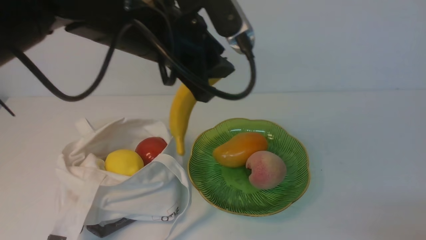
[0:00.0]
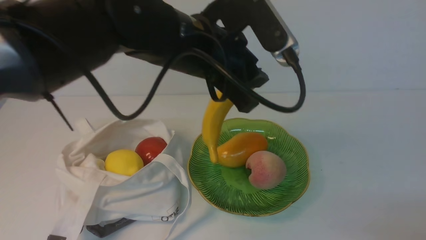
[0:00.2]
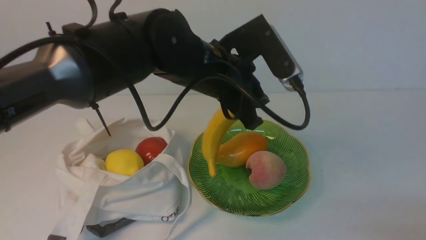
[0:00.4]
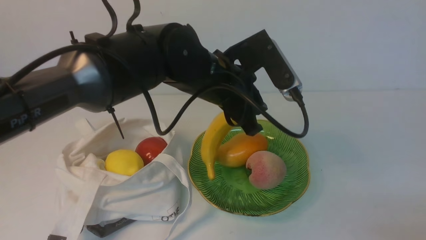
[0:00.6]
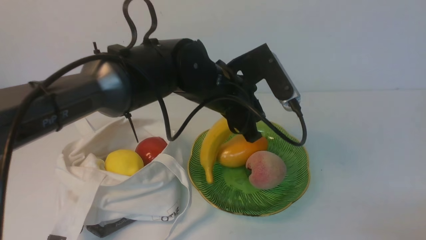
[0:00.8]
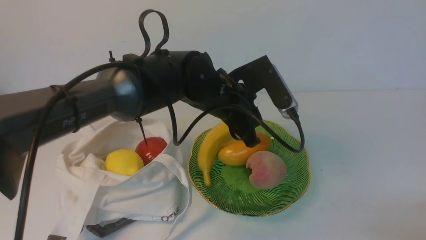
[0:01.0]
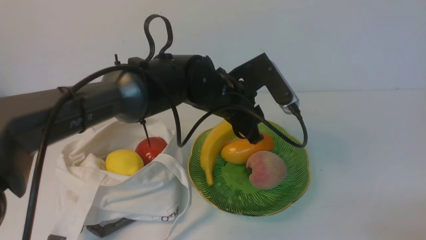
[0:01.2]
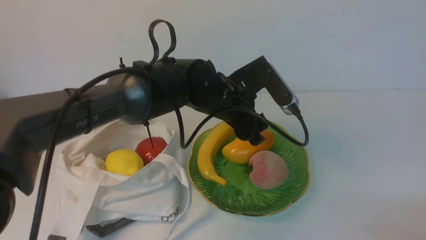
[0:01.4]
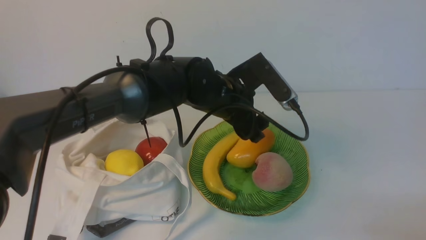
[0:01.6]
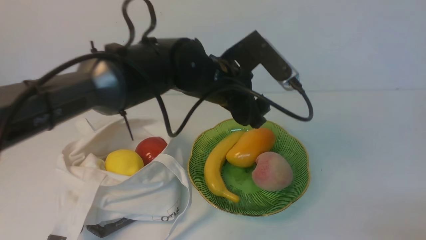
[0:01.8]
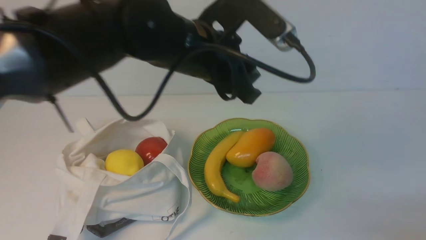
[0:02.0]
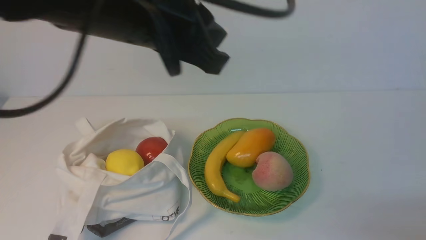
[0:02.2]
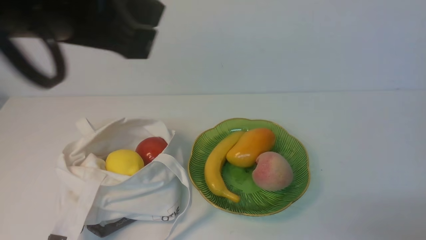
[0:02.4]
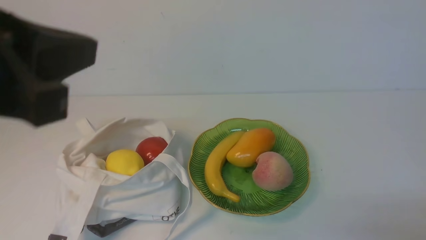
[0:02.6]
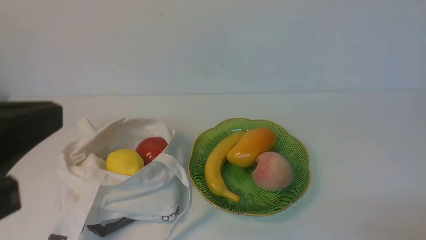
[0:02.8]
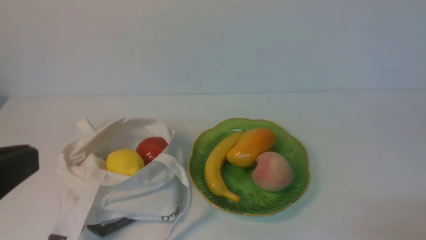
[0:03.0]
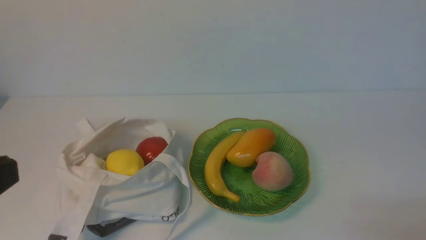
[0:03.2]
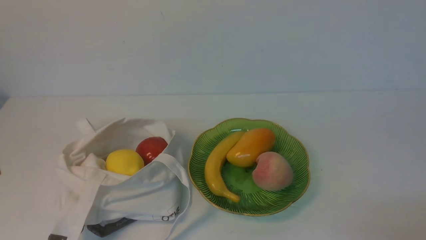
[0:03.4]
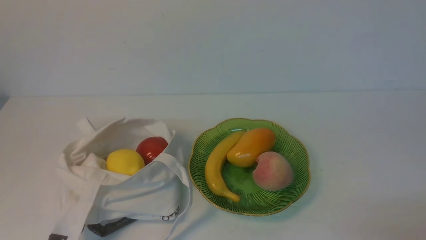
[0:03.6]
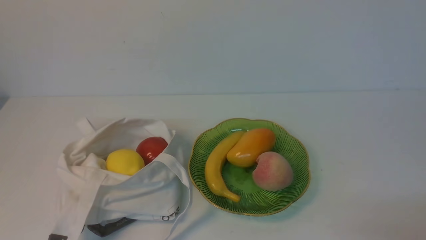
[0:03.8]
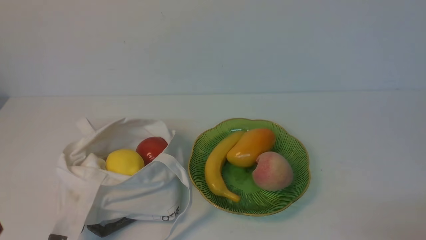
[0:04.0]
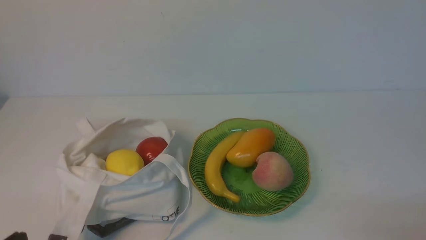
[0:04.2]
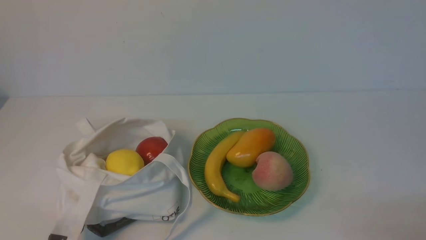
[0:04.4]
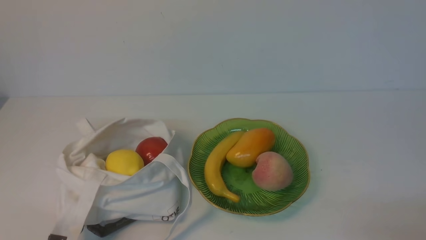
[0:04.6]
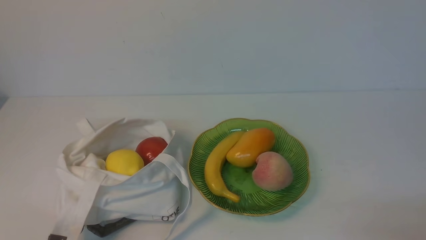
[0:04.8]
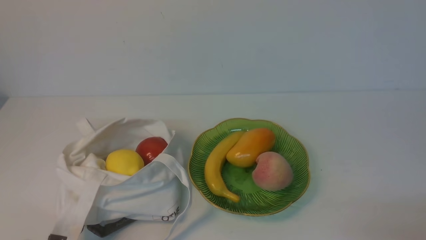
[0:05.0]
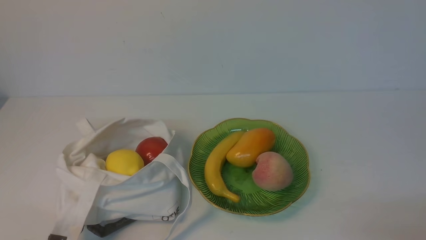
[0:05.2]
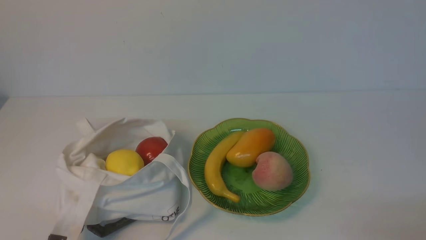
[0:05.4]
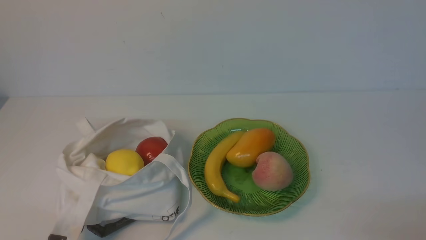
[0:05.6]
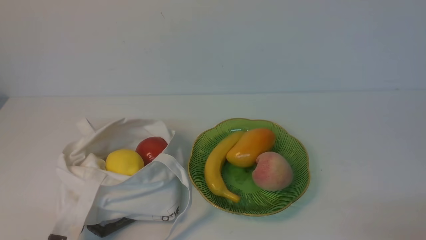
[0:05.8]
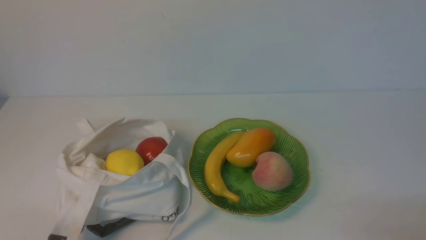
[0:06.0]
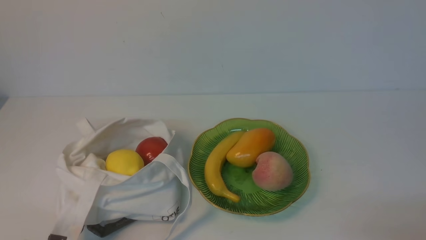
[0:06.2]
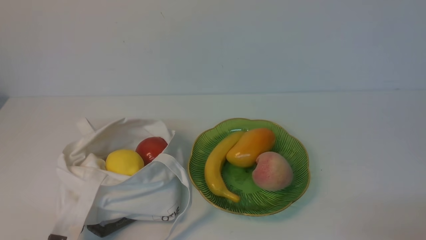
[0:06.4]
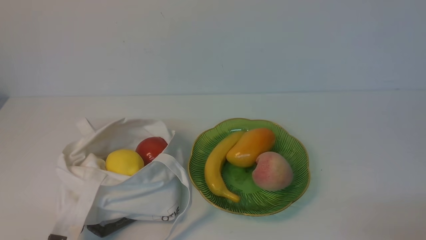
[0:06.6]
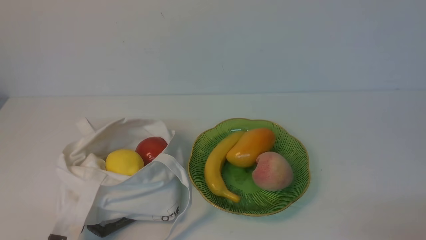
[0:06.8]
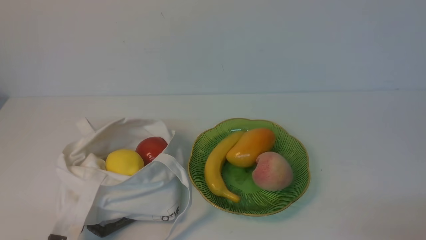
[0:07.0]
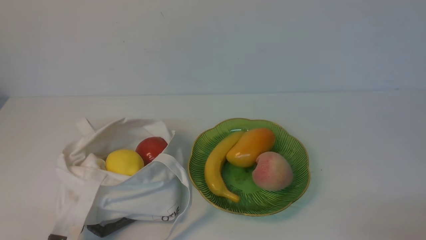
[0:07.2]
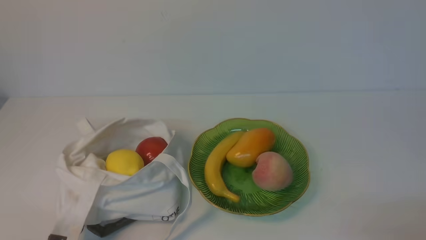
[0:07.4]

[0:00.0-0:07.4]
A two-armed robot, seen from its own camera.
Step, 0:00.0 to 0:01.6: use the left arm to put the banana into the empty plate on the right.
0:00.0 to 0:01.4: The left gripper goes about 15 cm downward, to the right and forward, and opens up.
0:01.4 to 0:03.0: The left gripper shifts approximately 40 cm backward, to the left and upward, and closes up.
0:03.0 to 0:04.4: The left gripper moves downward, about 20 cm.
0:04.4 to 0:07.4: The two grippers keep their place.

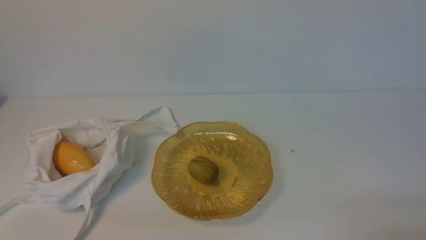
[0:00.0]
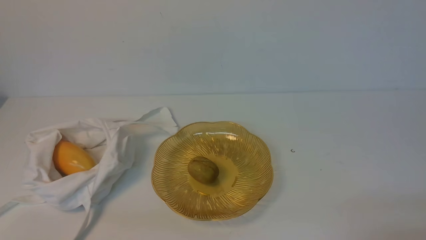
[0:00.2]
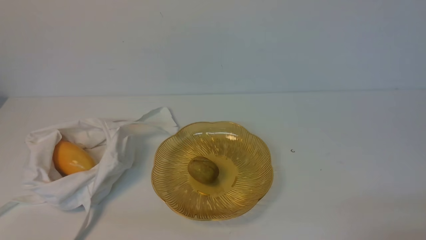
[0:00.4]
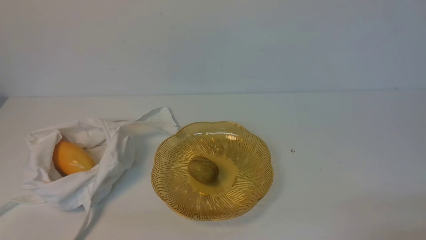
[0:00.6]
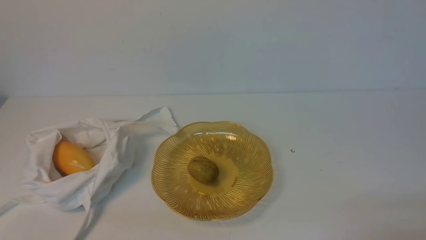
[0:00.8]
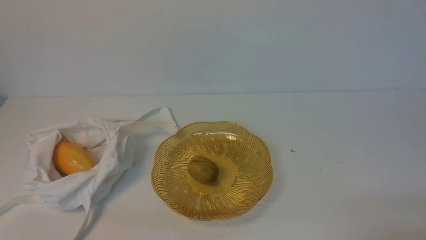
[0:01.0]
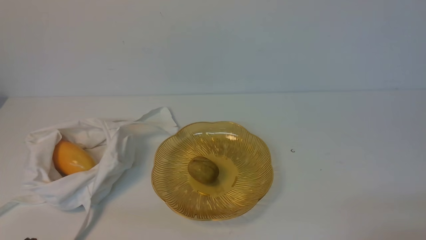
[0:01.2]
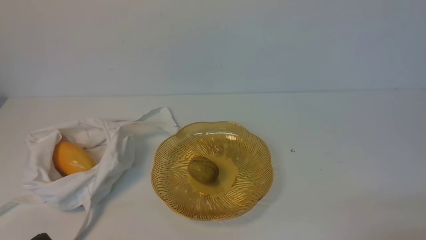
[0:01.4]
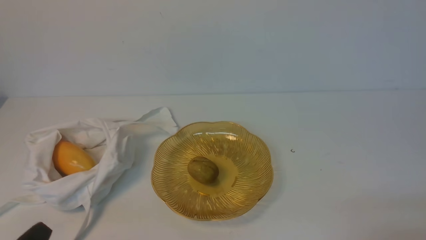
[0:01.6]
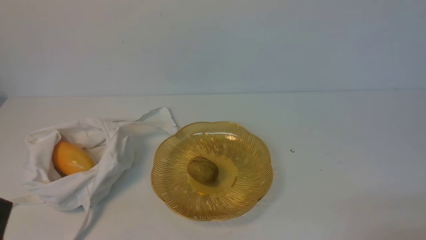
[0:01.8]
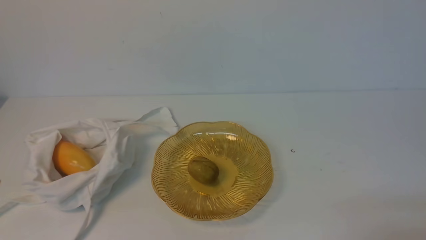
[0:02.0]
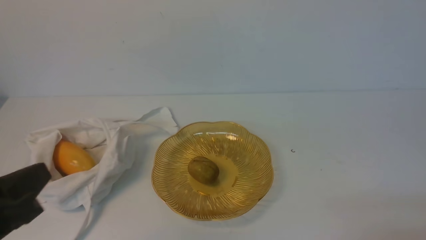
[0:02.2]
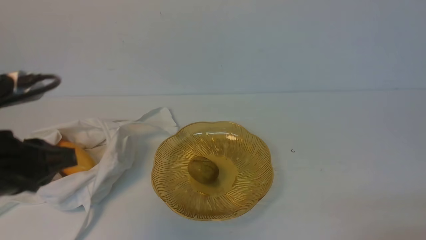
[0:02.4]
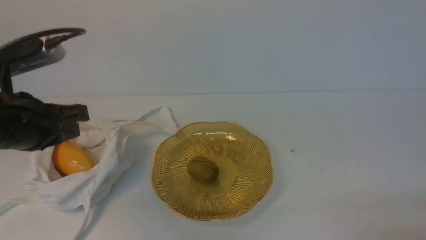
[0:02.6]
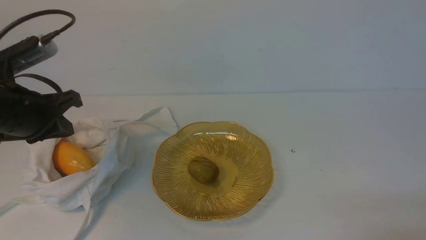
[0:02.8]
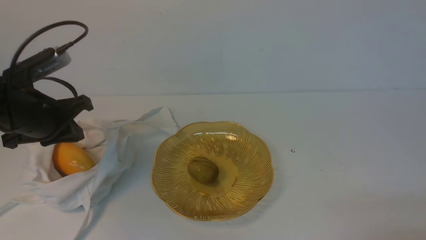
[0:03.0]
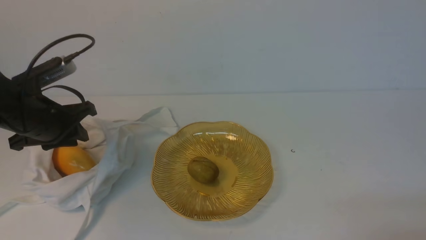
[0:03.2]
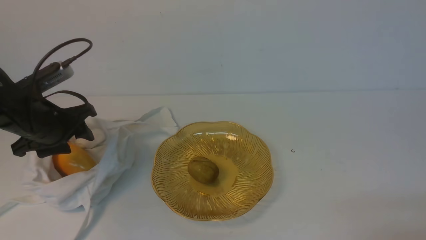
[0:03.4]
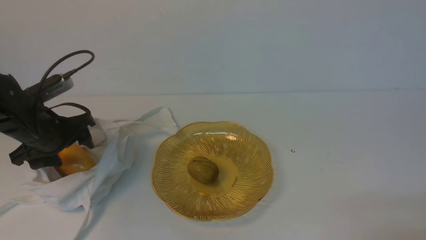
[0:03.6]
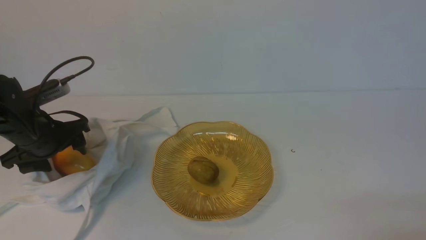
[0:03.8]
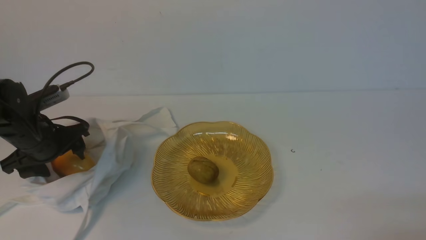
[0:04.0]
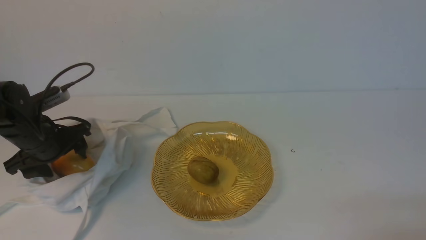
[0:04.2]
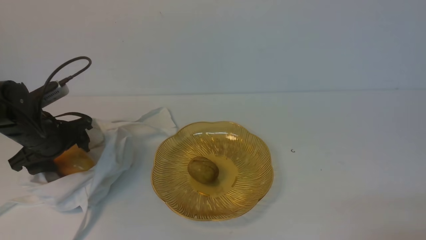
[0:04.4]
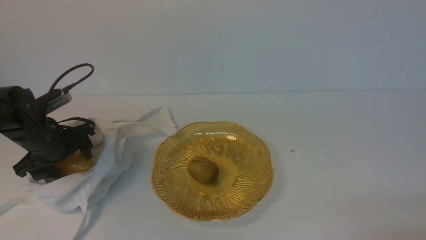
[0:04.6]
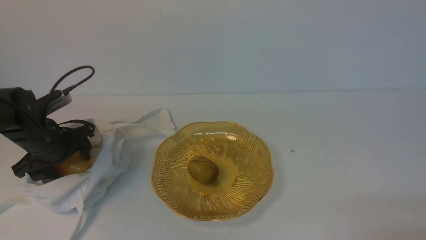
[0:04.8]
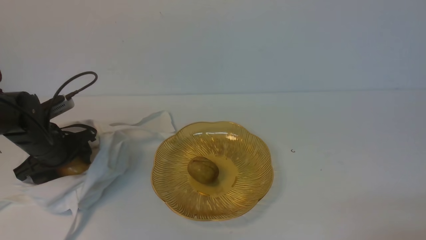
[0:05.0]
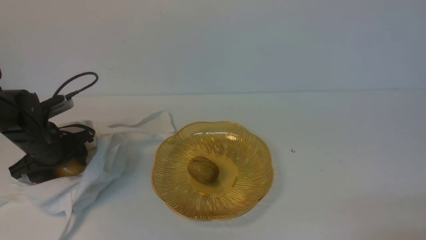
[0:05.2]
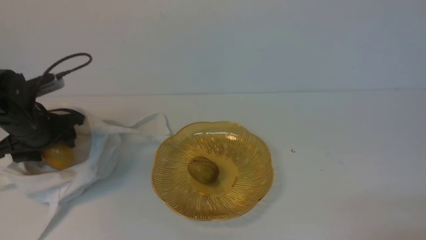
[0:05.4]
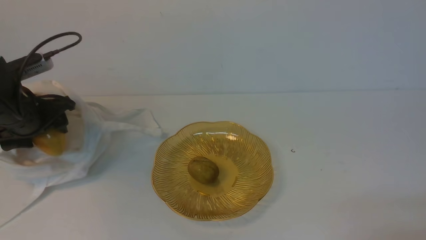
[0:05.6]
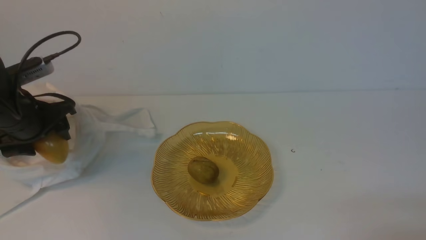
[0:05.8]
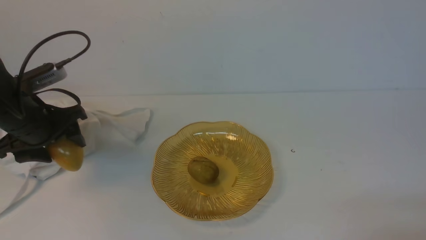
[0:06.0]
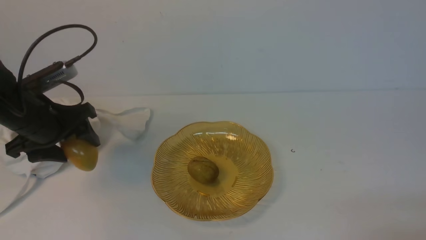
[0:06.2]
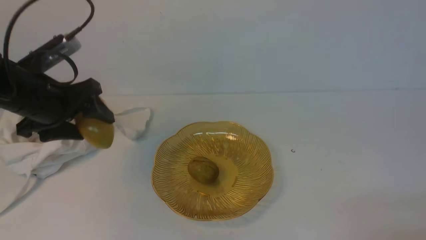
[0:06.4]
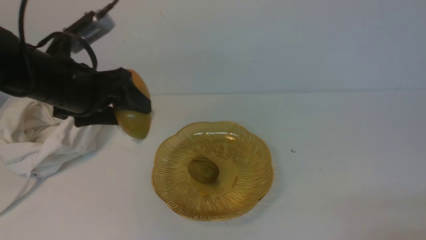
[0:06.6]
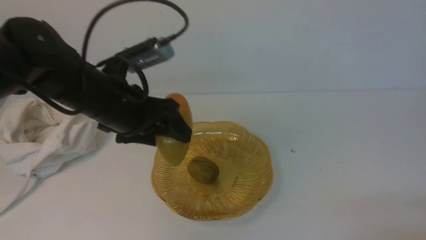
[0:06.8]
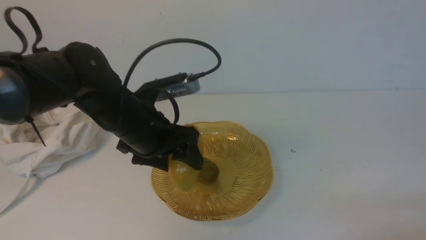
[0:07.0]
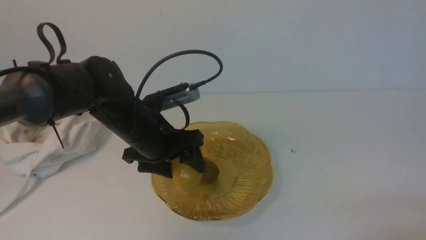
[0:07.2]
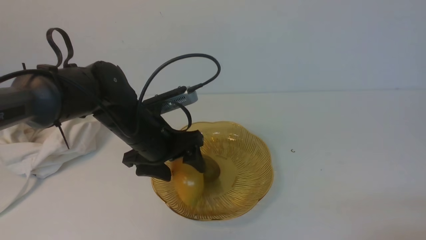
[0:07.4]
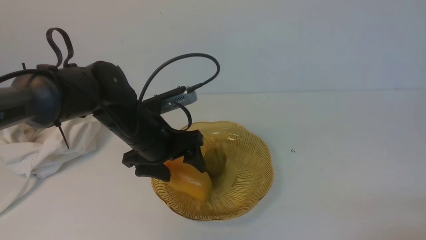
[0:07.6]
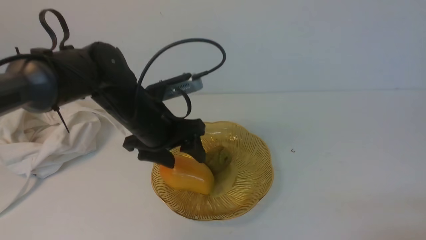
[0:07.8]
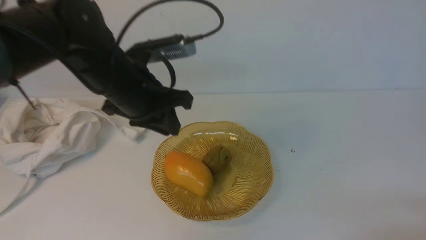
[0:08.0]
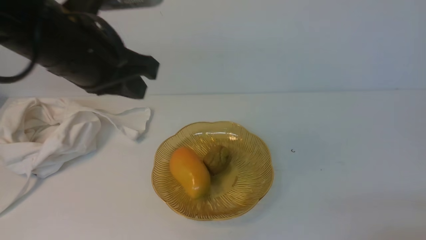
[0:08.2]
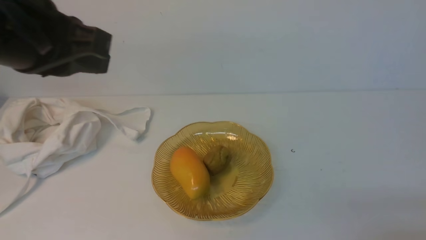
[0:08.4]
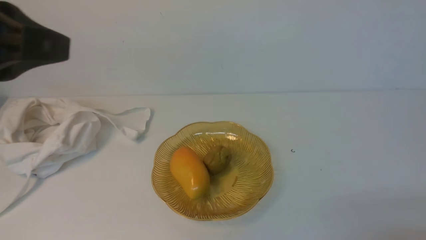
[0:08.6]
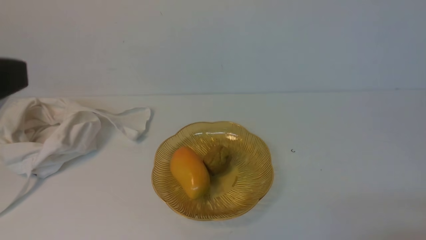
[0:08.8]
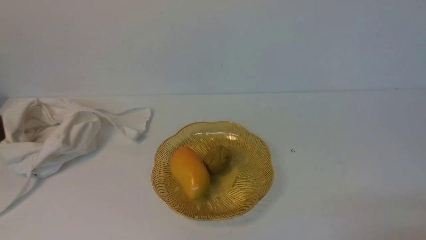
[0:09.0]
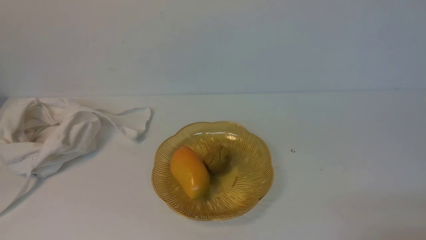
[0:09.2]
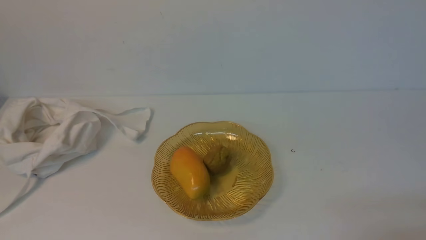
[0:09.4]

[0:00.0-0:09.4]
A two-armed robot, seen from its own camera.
Step, 0:00.0 to 0:05.4: use the left arm to grab a mango from the bag.
Step, 0:05.8 to 0:07.6: use the left arm to put the mango into the empty plate on the right.
0:01.6 to 0:03.2: The left gripper moves forward, some 25 cm.
0:03.2 to 0:04.8: The left gripper travels downward by about 10 cm, and opens up.
0:04.8 to 0:06.2: The left gripper travels upward by some 10 cm.
0:06.2 to 0:07.8: The left gripper moves to the right, about 15 cm.
0:07.8 to 0:09.4: The left gripper travels backward, upward and to the left by approximately 35 cm, and closes.
